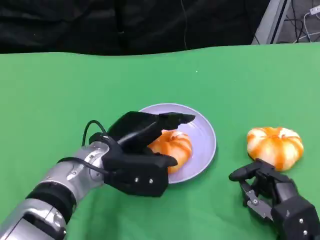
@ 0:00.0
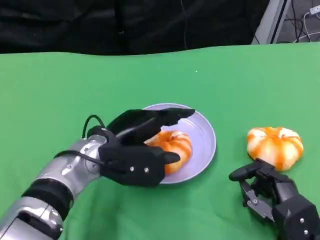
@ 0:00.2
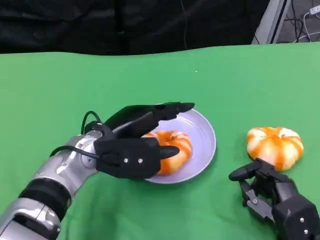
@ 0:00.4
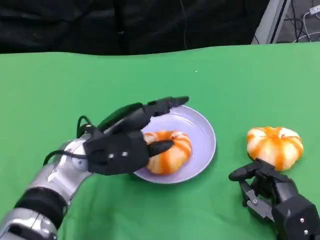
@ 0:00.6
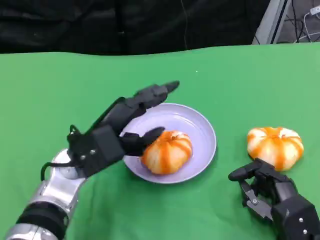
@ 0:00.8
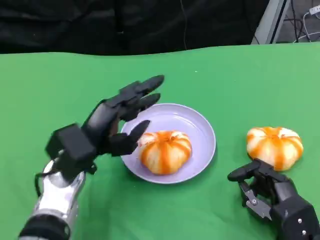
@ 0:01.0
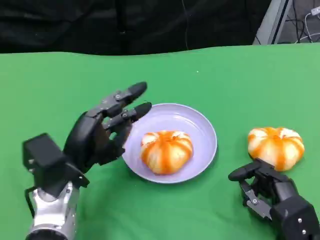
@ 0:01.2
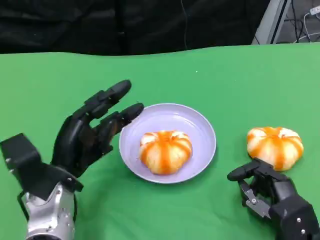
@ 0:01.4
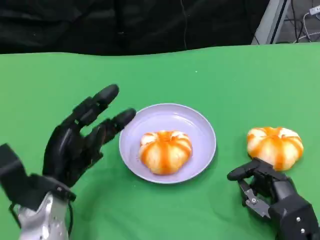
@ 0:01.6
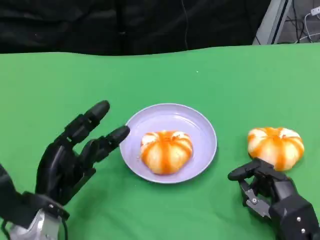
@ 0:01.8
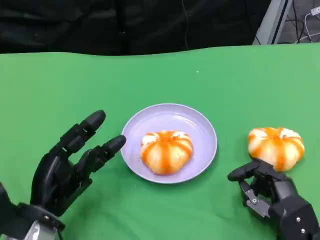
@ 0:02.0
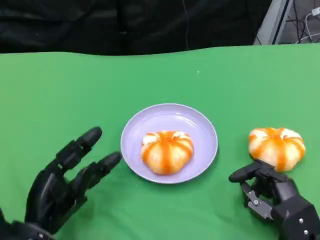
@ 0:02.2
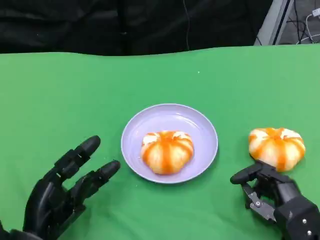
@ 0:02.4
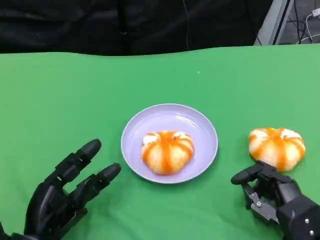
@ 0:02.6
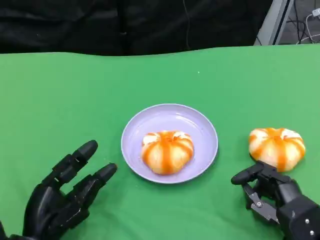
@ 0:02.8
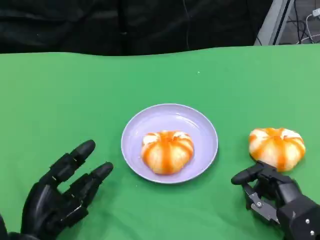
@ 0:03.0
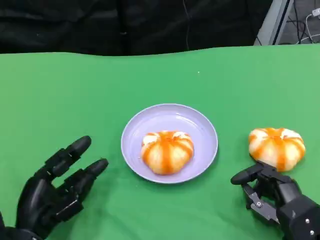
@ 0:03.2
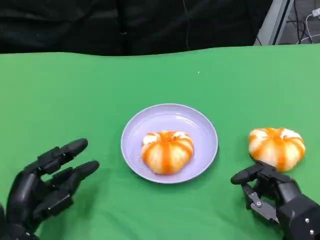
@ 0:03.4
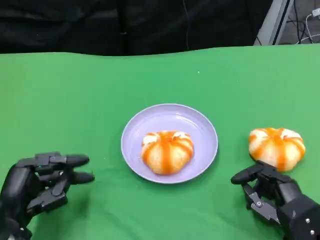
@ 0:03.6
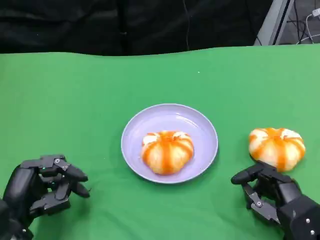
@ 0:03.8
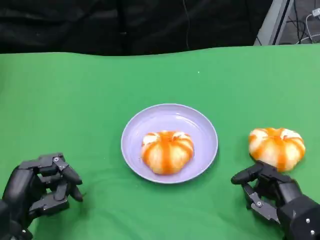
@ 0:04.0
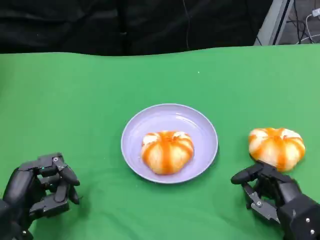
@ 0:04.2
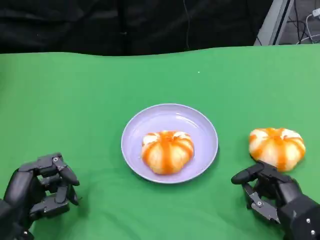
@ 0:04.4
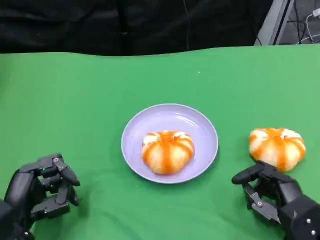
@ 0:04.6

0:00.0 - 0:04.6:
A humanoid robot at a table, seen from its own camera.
Task of the whole recording: Grasp the bread from the table and place it into the plate.
0:00.0 - 0:01.6: The left hand heads to the left, covering roughly 10 cm.
0:01.6 - 0:03.0: The left hand heads backward, covering roughly 5 cm.

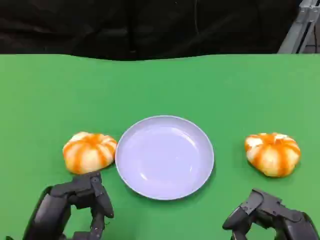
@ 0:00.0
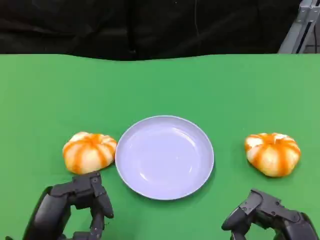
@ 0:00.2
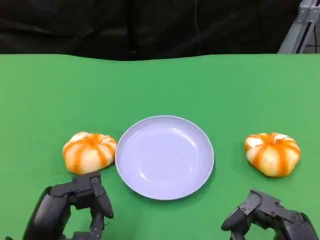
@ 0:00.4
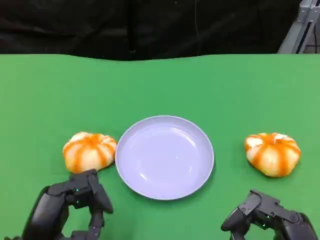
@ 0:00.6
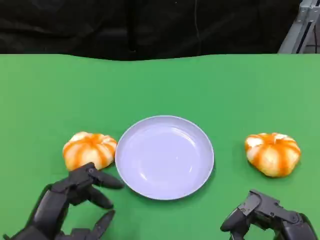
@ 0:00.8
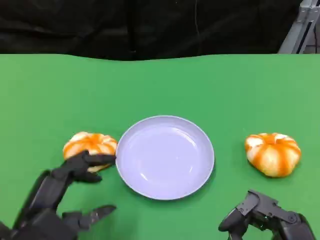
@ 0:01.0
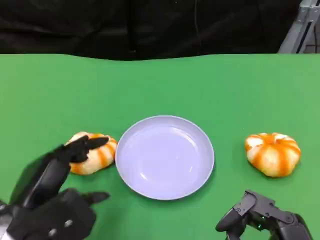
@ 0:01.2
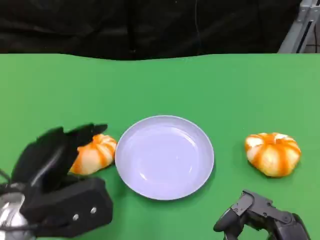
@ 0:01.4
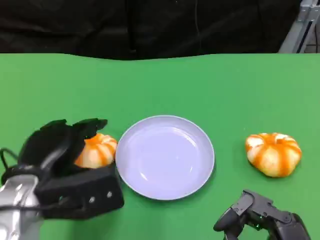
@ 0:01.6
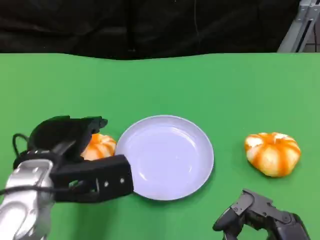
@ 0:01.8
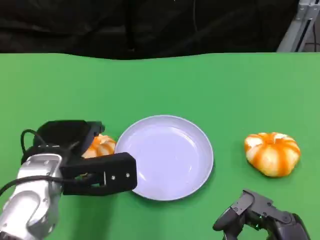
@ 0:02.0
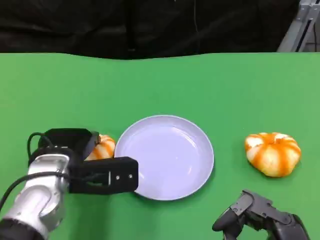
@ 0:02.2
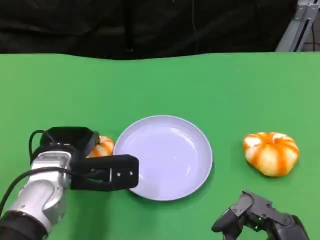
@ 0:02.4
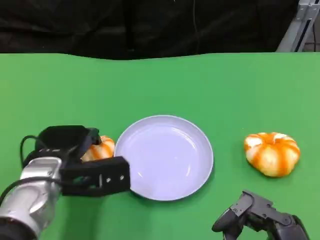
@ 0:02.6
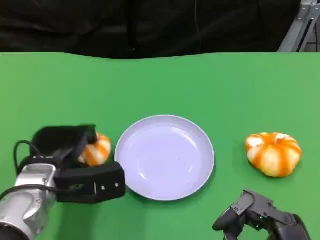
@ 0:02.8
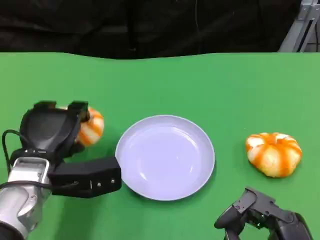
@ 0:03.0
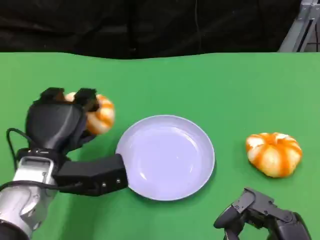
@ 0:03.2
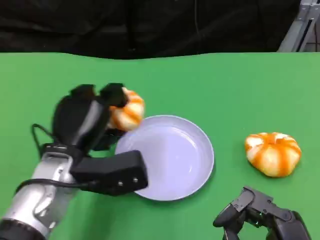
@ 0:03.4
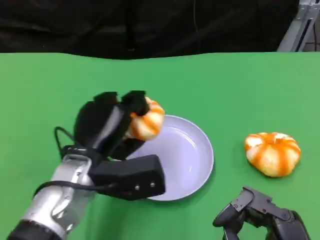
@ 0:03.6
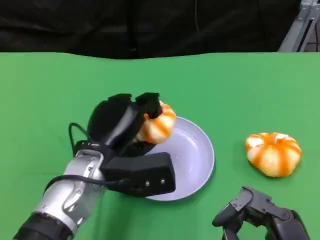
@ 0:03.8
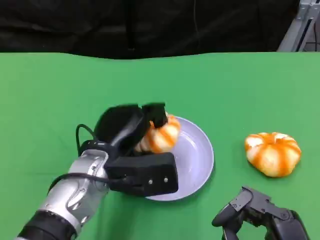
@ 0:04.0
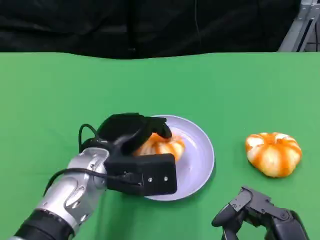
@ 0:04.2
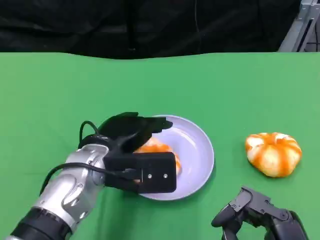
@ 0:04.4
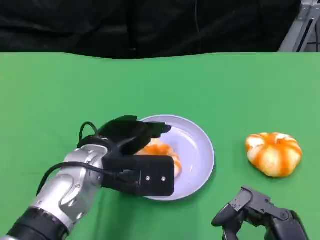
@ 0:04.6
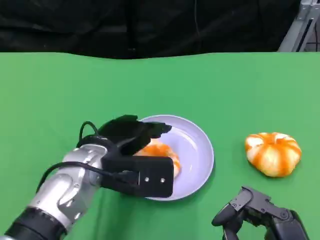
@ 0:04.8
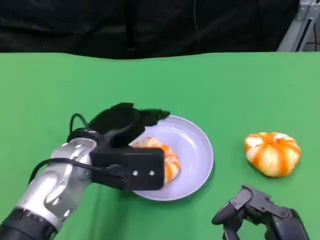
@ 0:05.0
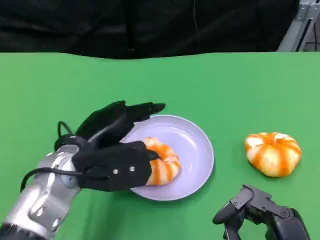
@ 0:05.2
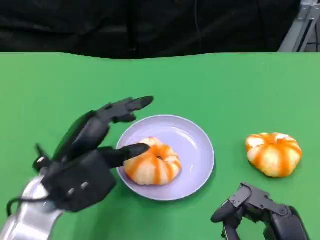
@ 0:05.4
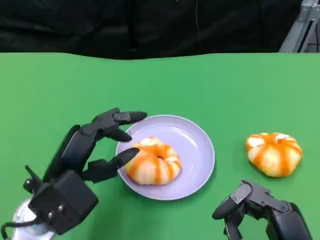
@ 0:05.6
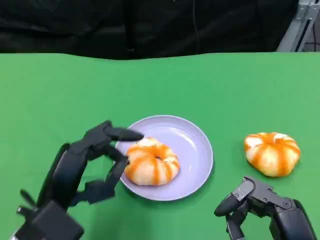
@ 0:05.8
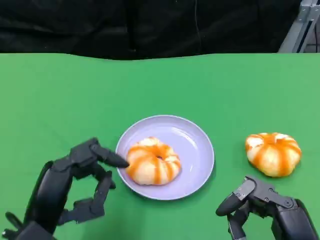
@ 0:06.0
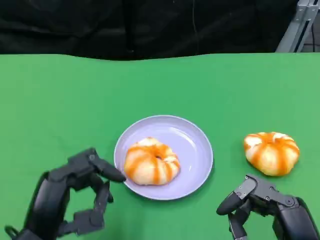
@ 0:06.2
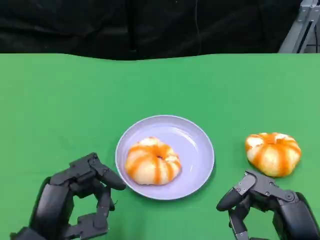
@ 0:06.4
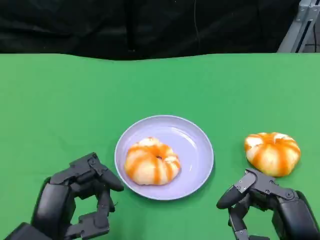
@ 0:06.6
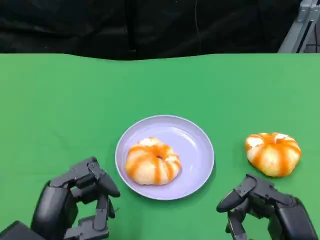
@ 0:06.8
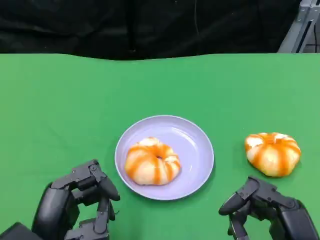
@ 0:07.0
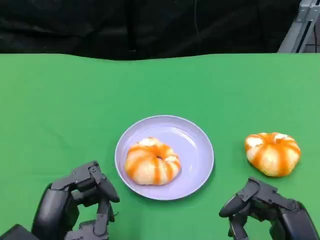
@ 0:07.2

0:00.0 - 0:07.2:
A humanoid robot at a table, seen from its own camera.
Task of the whole recording: Grasp the bread from the table and place it into the plate.
0:00.0 - 0:01.4: The left hand goes roughly 10 cm forward and upward.
0:01.4 - 0:02.8: The left hand heads forward, covering approximately 5 cm.
0:02.8 - 0:04.4: The left hand goes approximately 10 cm to the right.
0:04.4 - 0:05.8: The left hand travels backward and to the left by about 10 cm.
